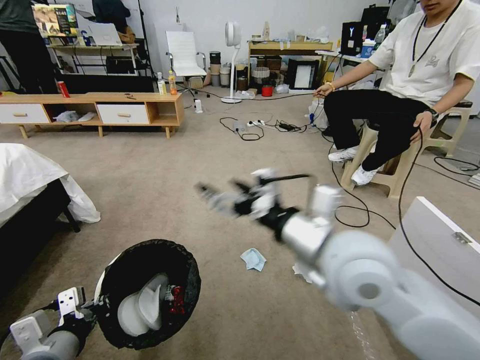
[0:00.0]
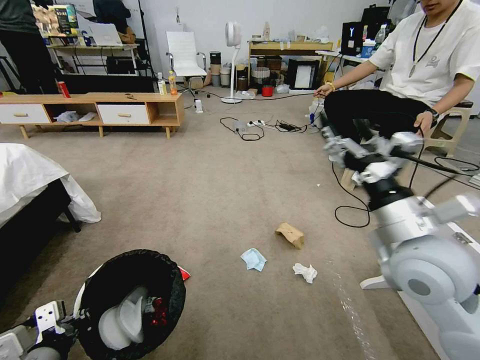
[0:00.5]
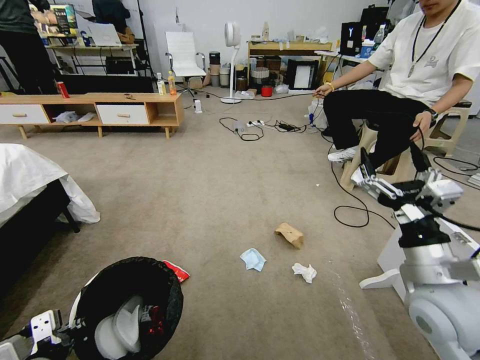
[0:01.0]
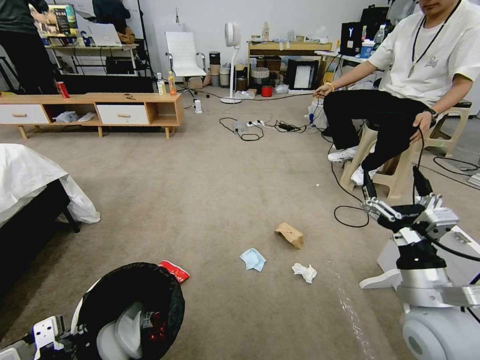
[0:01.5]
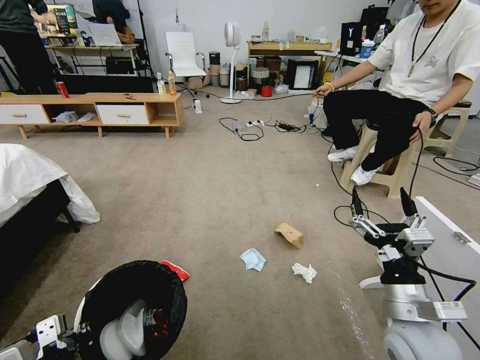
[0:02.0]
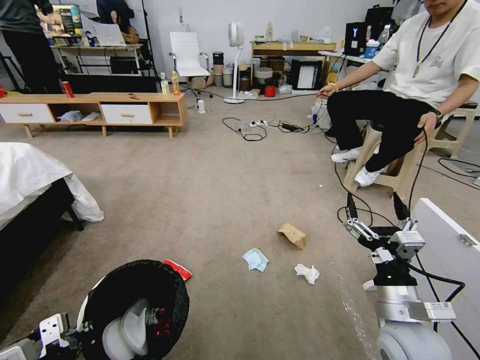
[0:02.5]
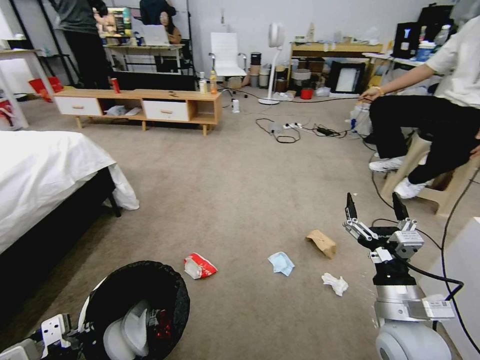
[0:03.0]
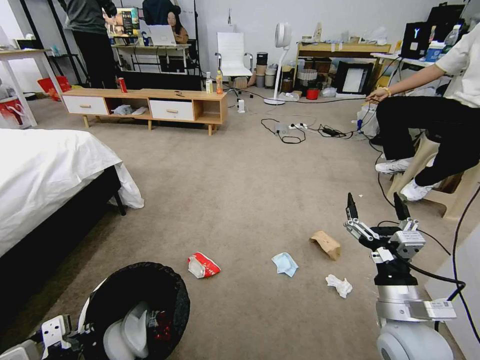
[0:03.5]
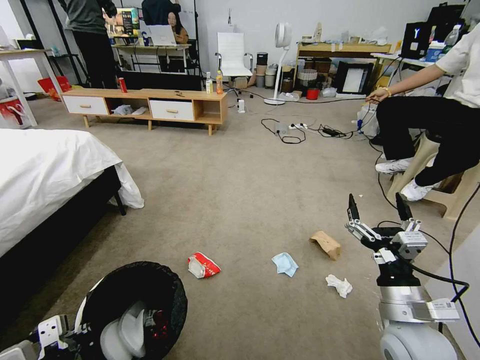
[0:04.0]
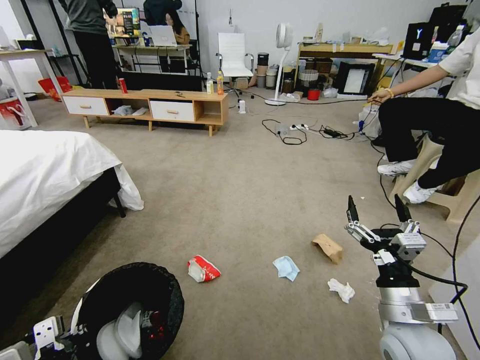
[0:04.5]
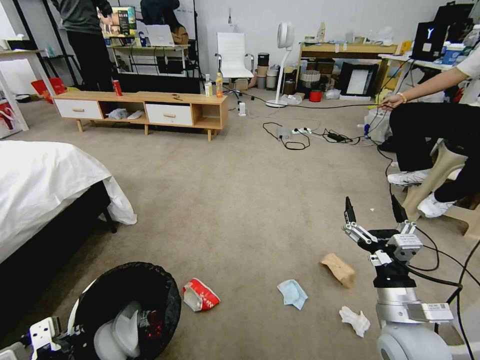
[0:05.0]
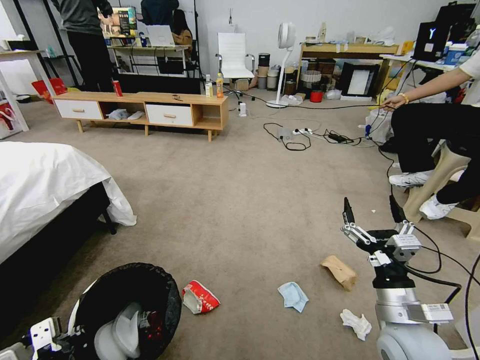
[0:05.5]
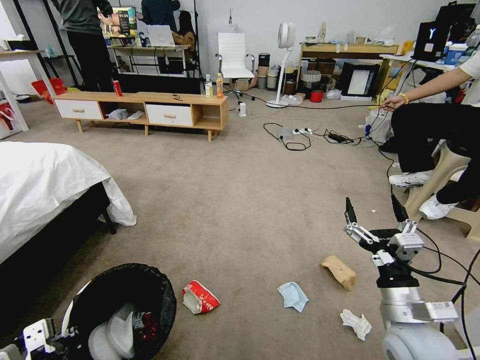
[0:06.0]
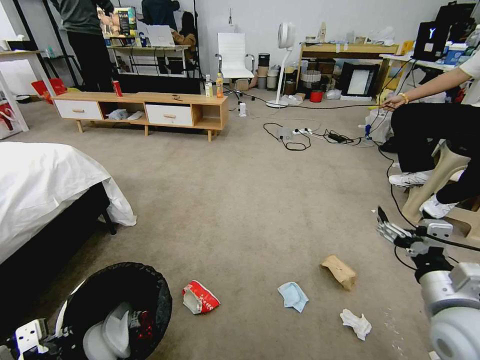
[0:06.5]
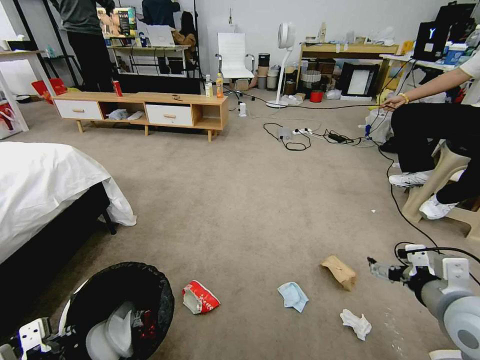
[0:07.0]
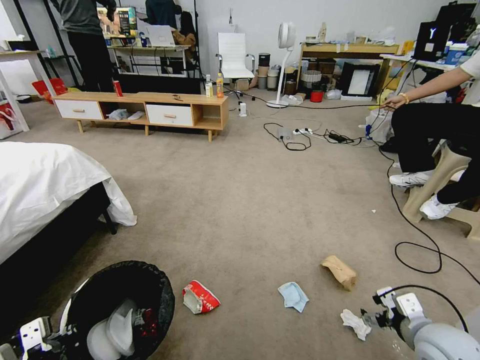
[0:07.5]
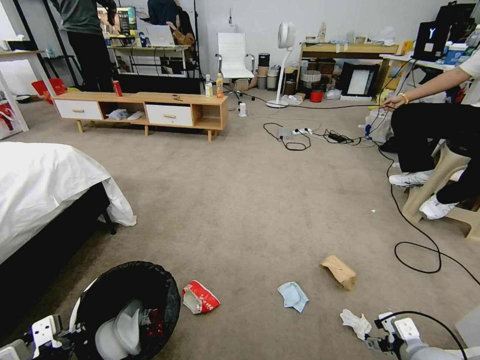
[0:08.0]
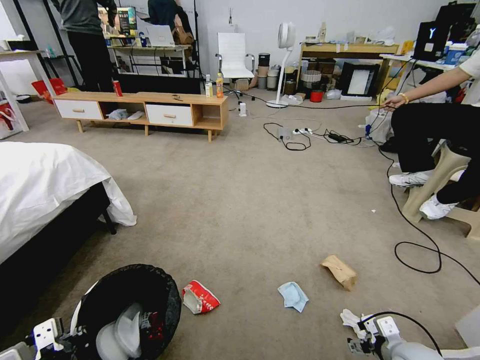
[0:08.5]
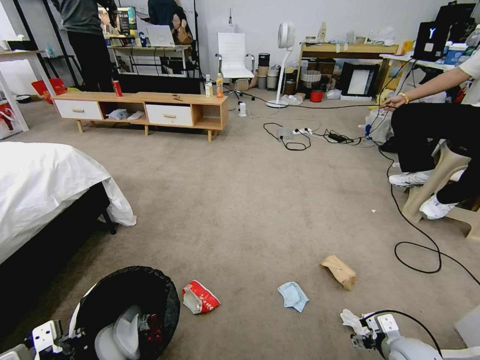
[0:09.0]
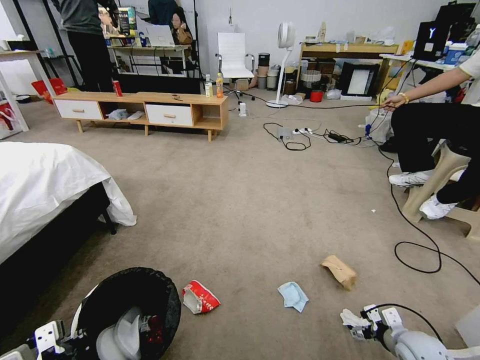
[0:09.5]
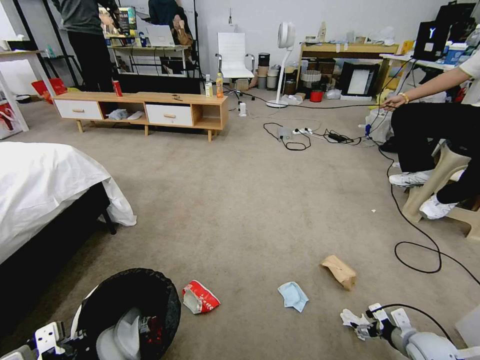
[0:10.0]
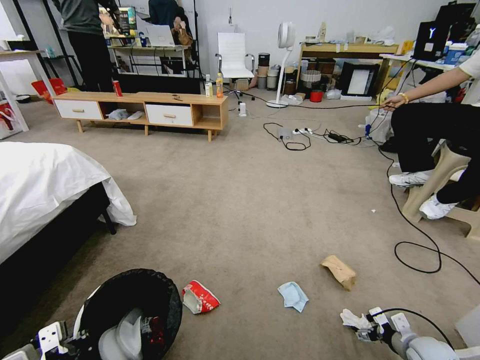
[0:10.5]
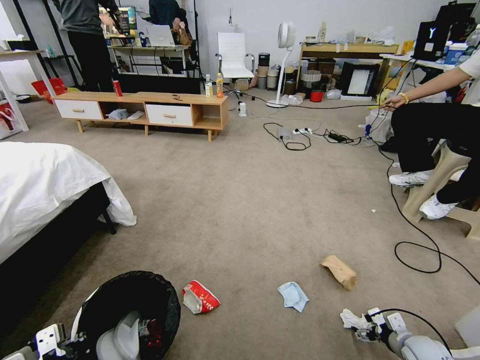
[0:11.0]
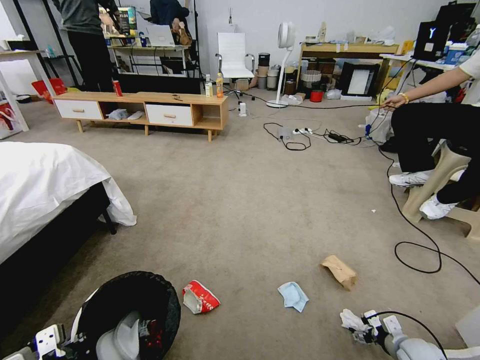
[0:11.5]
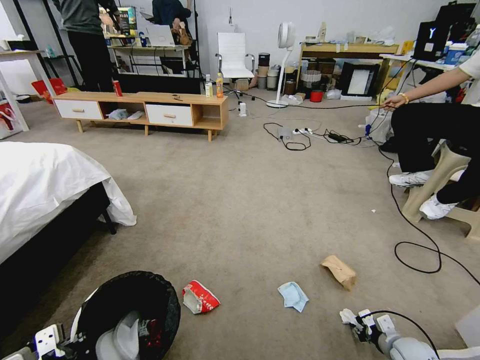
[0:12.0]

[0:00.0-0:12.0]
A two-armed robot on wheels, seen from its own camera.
Task of the whole recording: Pick up the trash bin and place the garbage on the floor into it.
0.0 to 2.0 s: The right gripper goes some 20 cm downward and to the right.
6.0 to 8.0 s: The right gripper travels downward and to the right by about 15 cm.
8.0 to 10.0 s: The right gripper heads downward, to the right and forward, covering approximately 15 cm.
10.0 to 12.0 s: The right gripper is displaced downward by roughly 5 cm, and closes up.

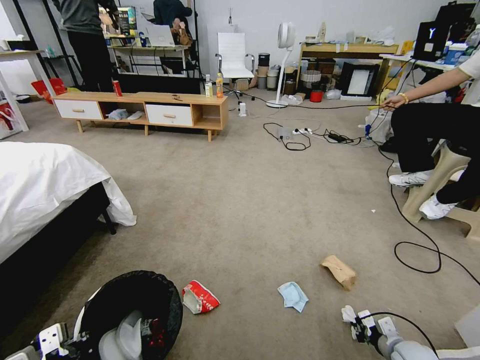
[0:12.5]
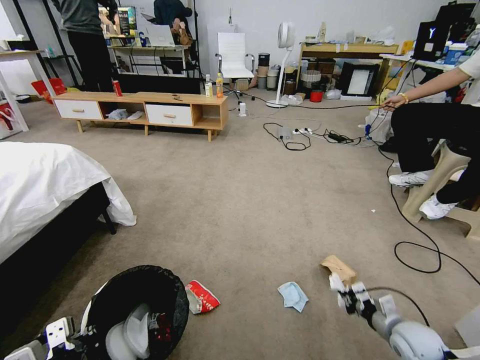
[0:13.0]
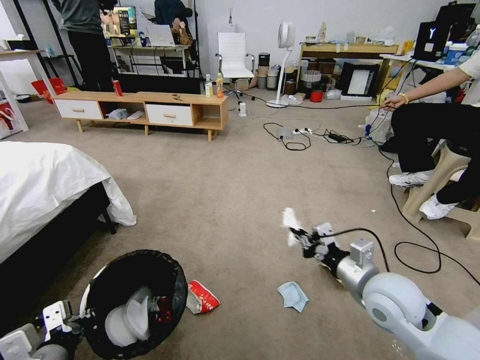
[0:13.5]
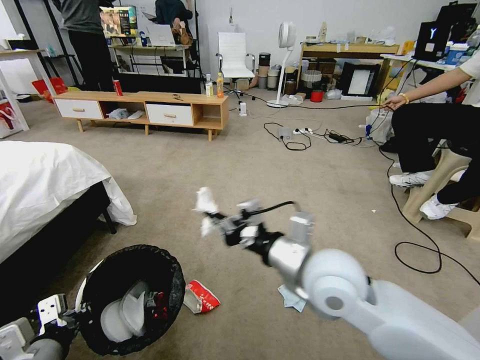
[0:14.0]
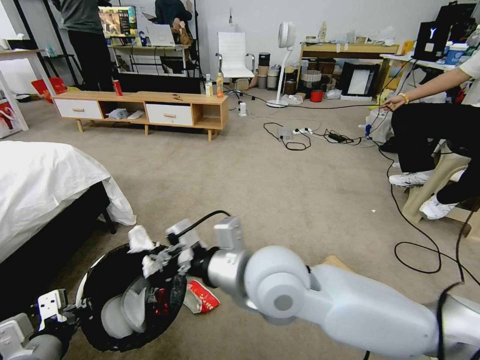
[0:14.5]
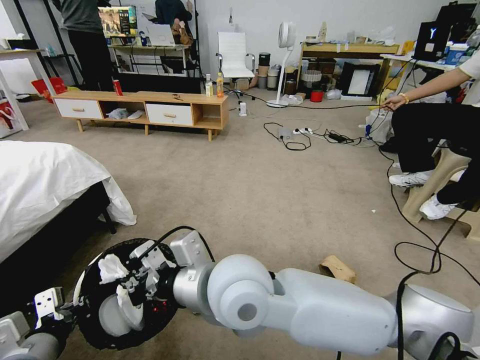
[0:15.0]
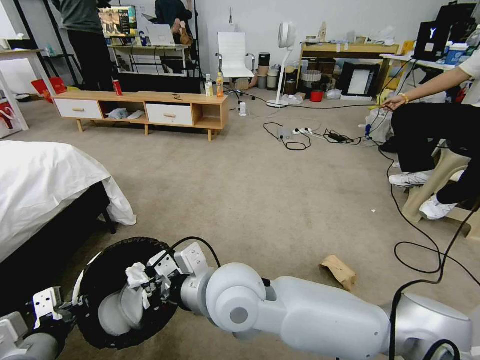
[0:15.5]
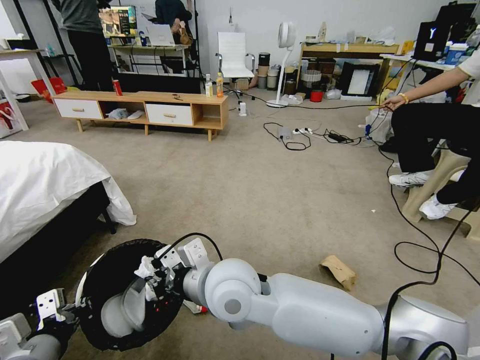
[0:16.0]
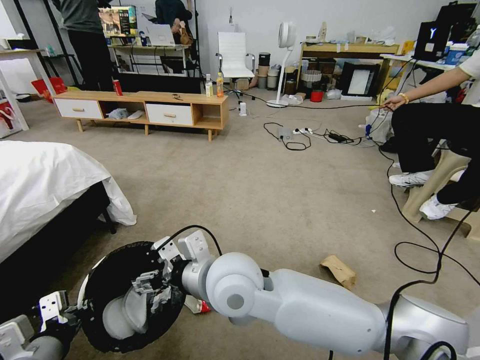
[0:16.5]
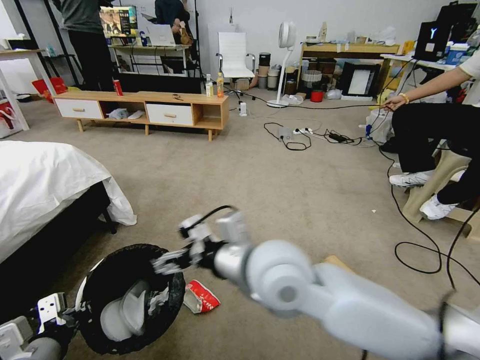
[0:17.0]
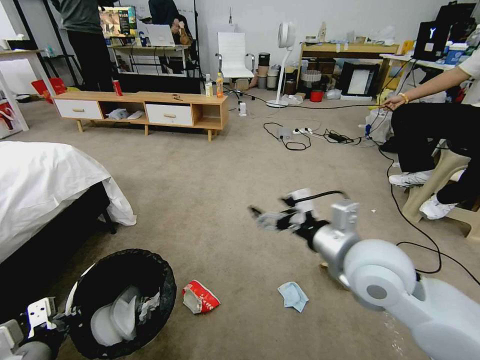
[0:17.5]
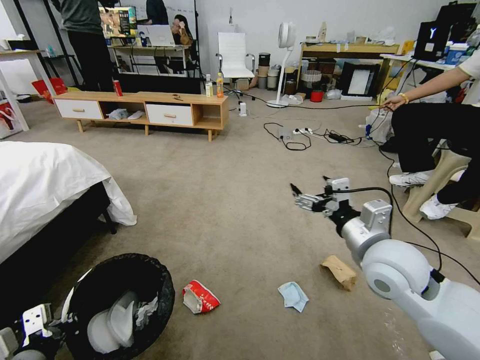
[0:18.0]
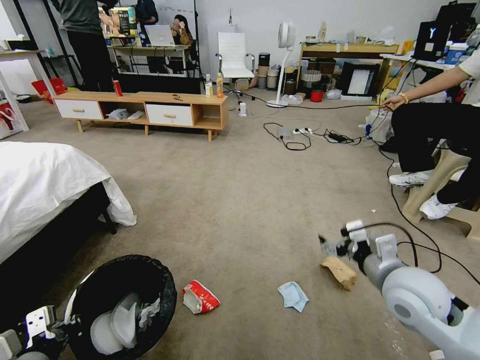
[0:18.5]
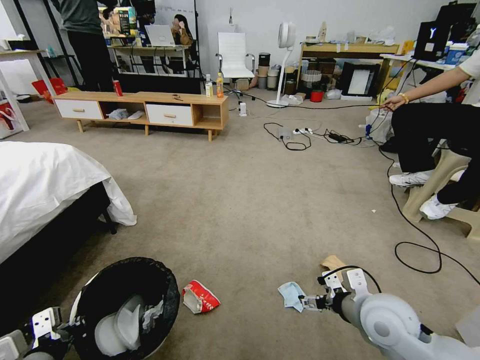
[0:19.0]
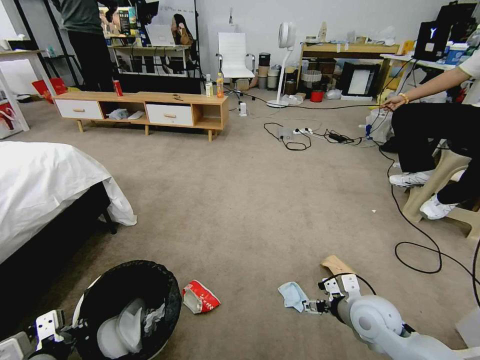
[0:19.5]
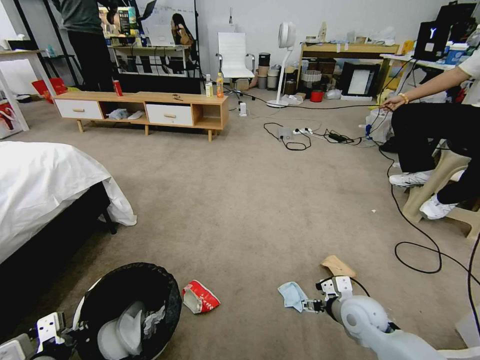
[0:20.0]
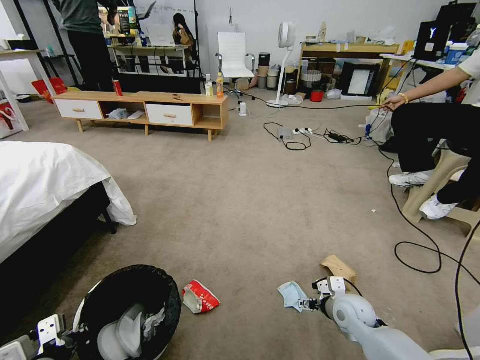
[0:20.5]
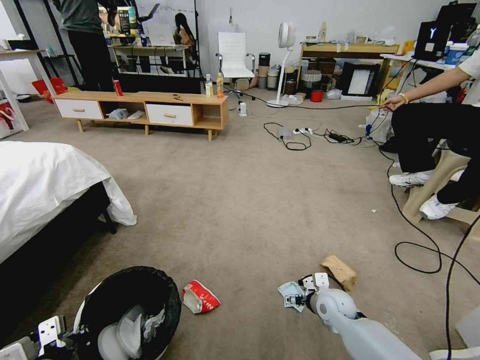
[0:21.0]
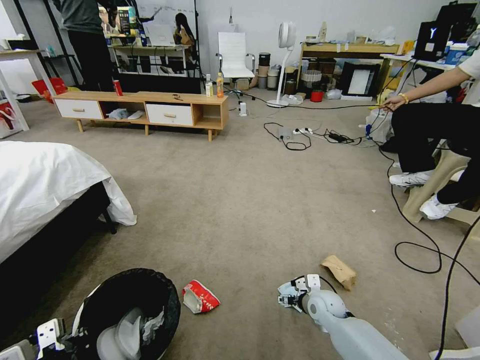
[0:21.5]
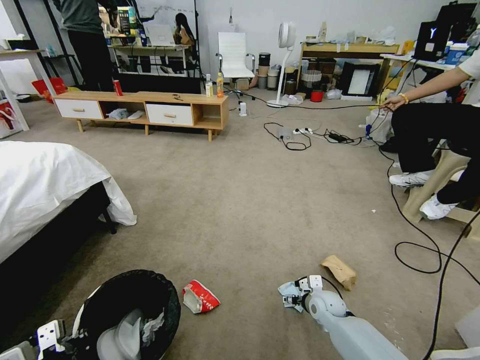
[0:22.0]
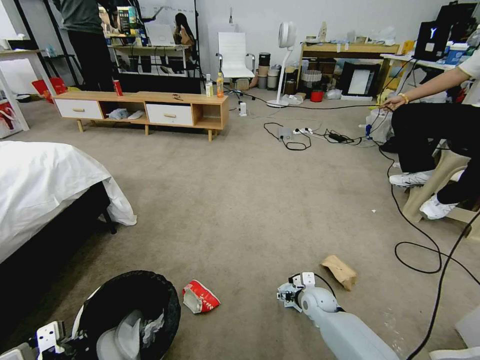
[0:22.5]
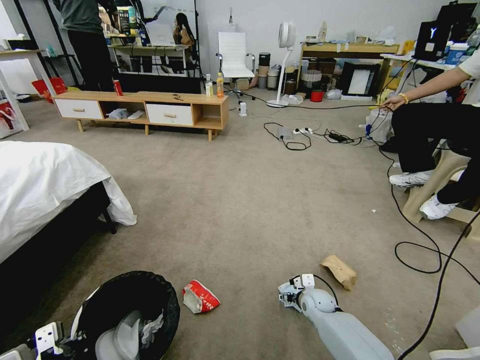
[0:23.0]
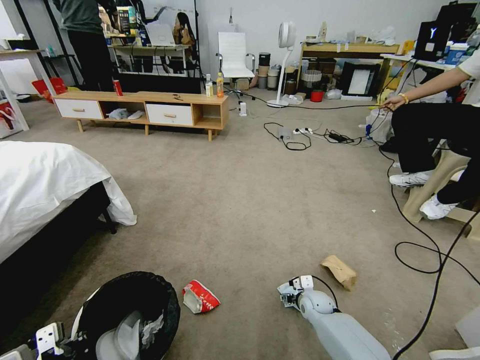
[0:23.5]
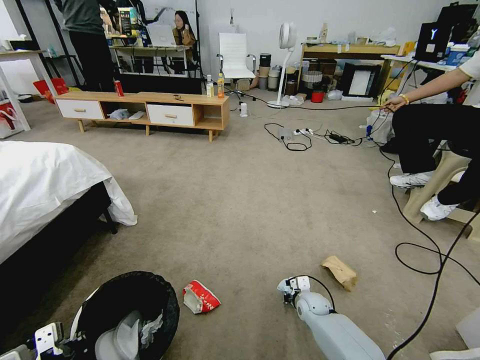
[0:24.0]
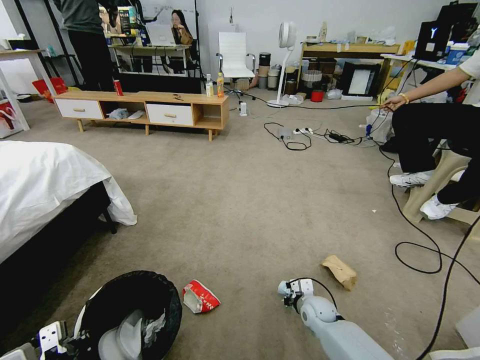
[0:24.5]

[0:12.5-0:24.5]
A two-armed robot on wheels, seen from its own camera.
Task of the whole recording: Pick up the trash bin and place the garbage on the floor into it.
12.5 to 14.5 s: The right gripper shifts approximately 60 cm to the left and upward; the left gripper ends up approximately 5 cm from where it was.
14.5 to 16.5 s: The right gripper moves to the left, roughly 5 cm, and opens its fingers.
16.5 to 18.5 s: The right gripper travels to the right by some 30 cm.
18.5 to 20.5 s: The right gripper heads downward, covering roughly 20 cm.
20.5 to 22.5 s: The right gripper goes approximately 10 cm downward, forward and to the left.
22.5 to 24.5 s: The right gripper closes up.

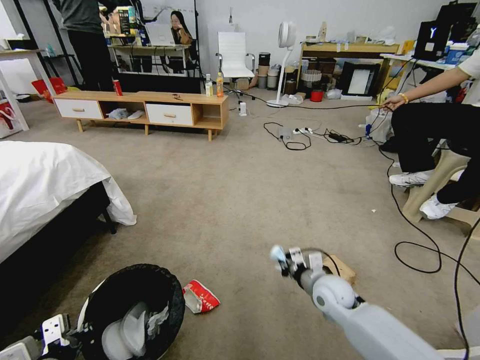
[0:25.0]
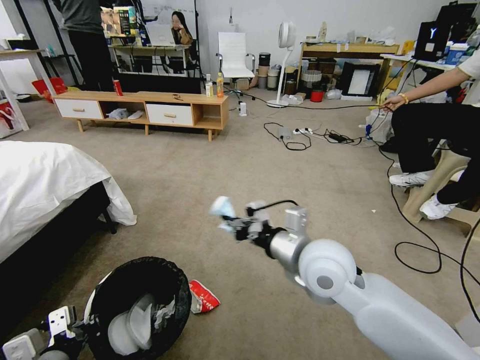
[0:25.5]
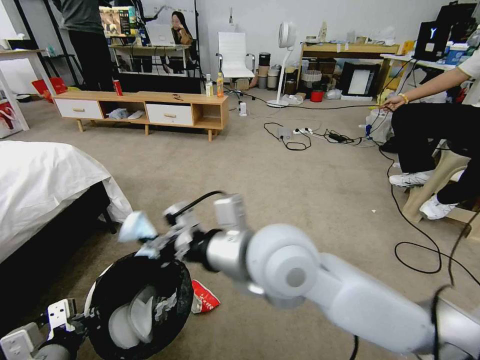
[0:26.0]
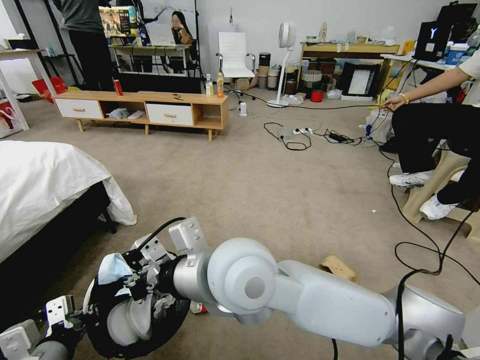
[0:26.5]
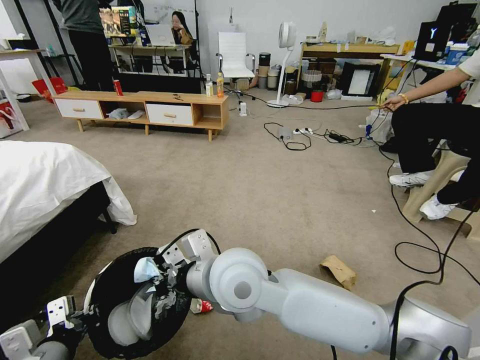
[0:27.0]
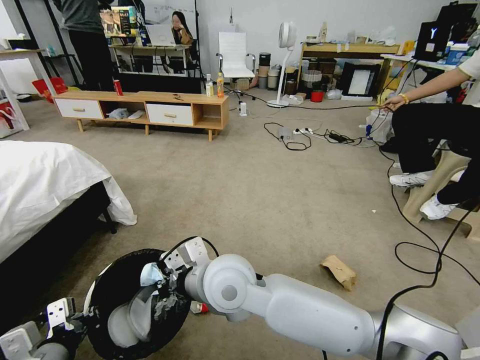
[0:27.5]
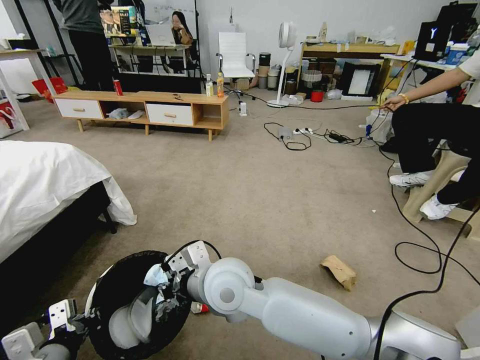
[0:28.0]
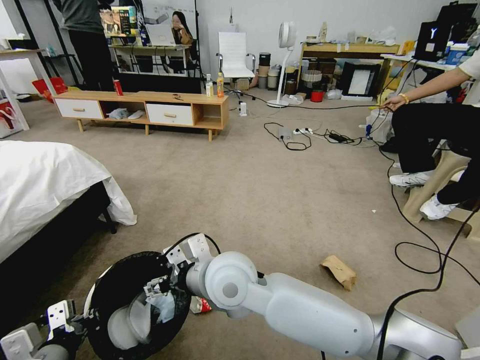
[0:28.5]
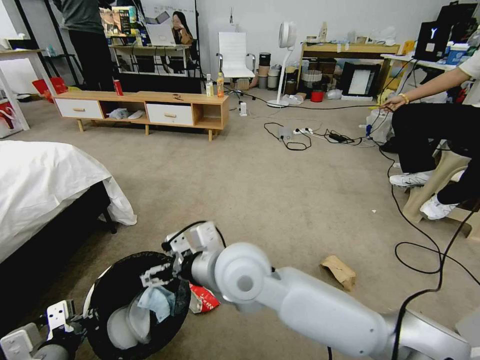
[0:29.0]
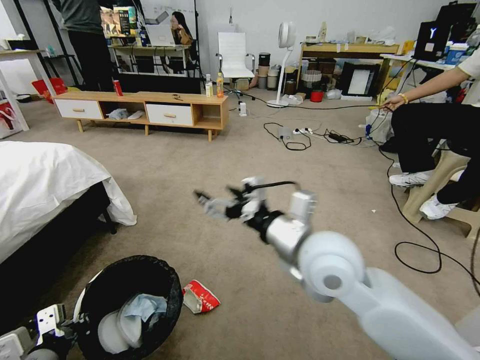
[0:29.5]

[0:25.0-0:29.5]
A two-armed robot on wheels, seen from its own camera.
Task of the whole recording: Pick up the trash bin and place the garbage on the floor into it.
25.0 to 27.0 s: The right gripper goes about 30 cm to the left and upward.
27.0 to 29.5 s: The right gripper is displaced to the right by some 15 cm, and opens up.
